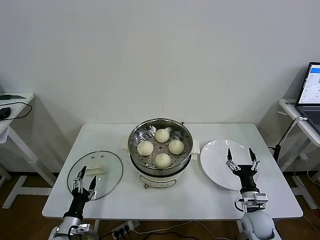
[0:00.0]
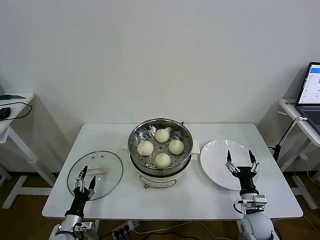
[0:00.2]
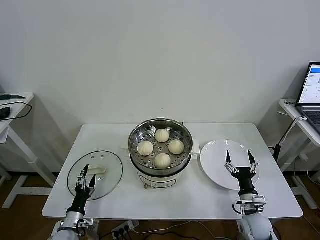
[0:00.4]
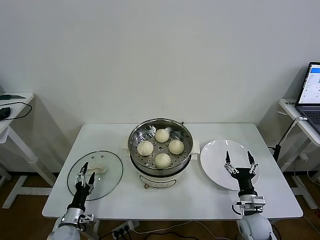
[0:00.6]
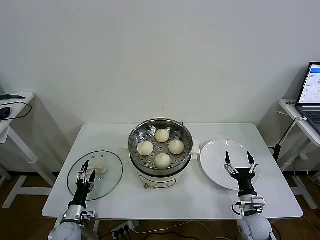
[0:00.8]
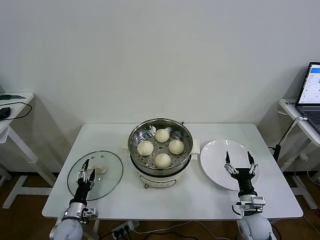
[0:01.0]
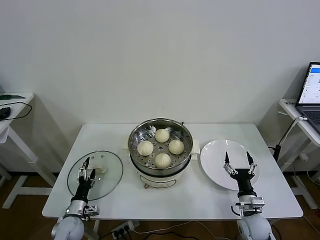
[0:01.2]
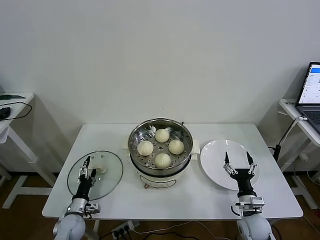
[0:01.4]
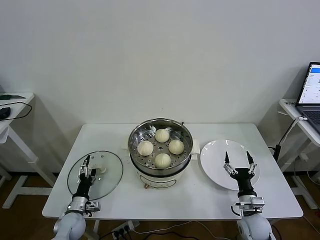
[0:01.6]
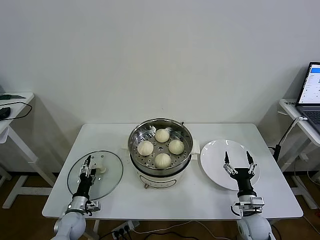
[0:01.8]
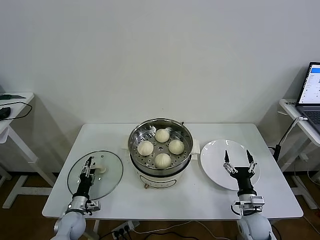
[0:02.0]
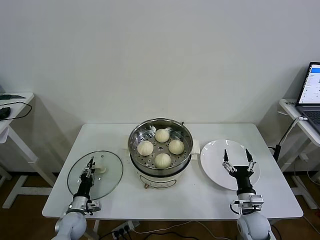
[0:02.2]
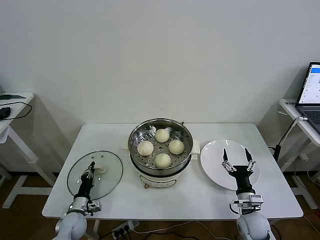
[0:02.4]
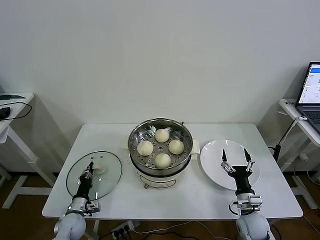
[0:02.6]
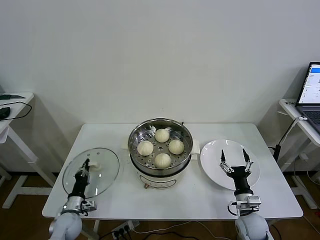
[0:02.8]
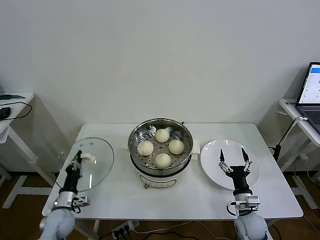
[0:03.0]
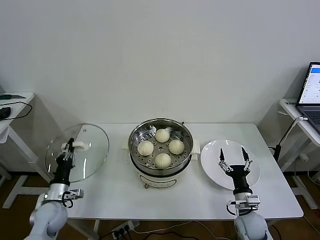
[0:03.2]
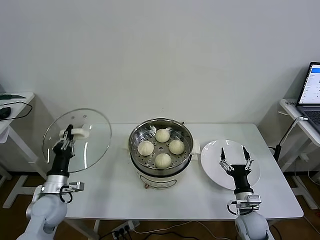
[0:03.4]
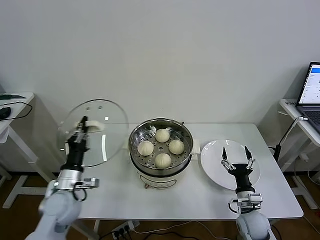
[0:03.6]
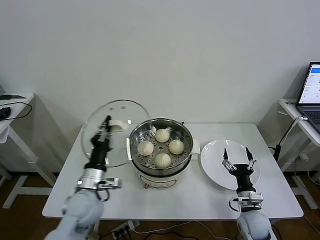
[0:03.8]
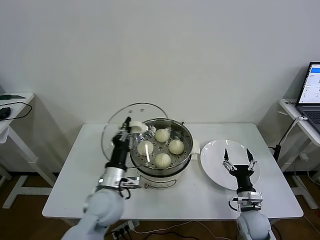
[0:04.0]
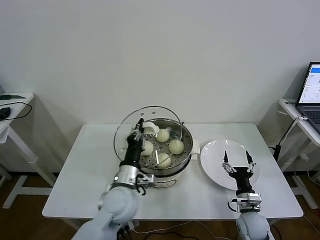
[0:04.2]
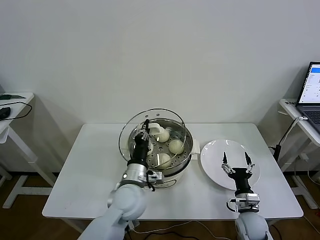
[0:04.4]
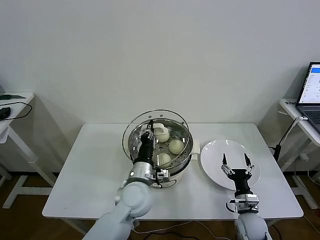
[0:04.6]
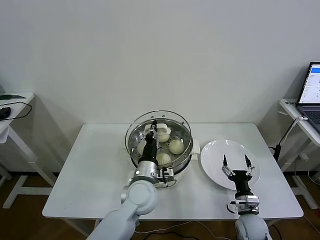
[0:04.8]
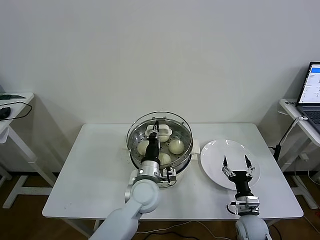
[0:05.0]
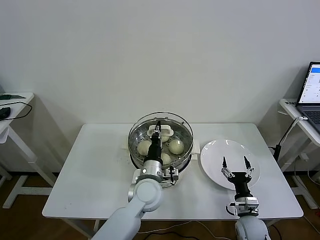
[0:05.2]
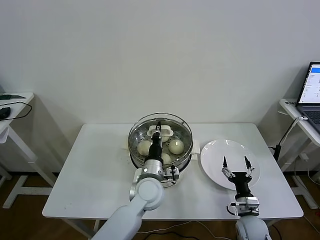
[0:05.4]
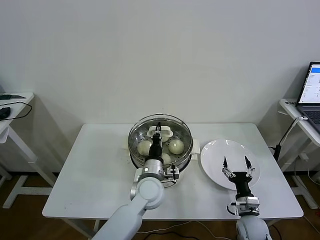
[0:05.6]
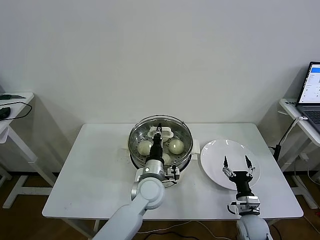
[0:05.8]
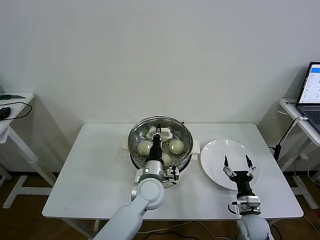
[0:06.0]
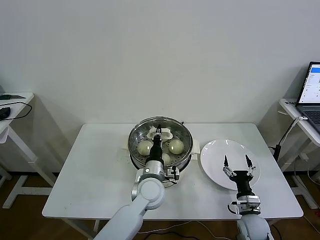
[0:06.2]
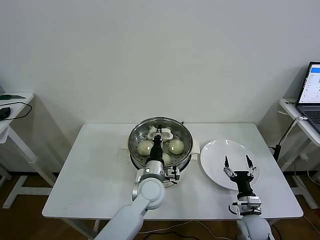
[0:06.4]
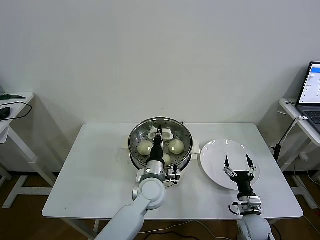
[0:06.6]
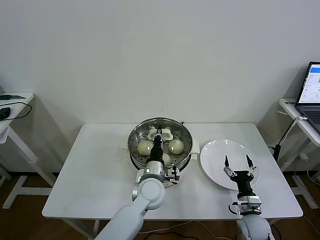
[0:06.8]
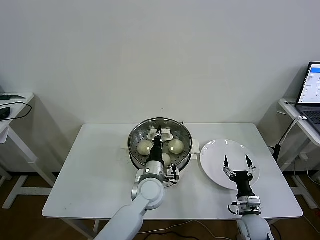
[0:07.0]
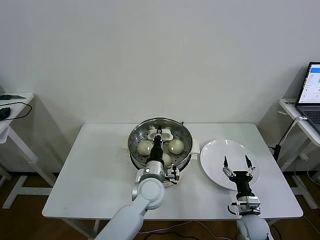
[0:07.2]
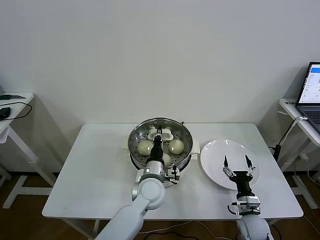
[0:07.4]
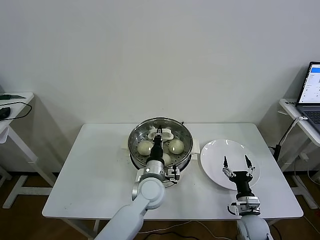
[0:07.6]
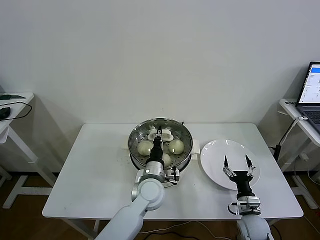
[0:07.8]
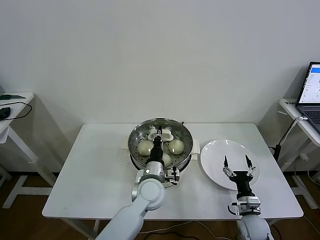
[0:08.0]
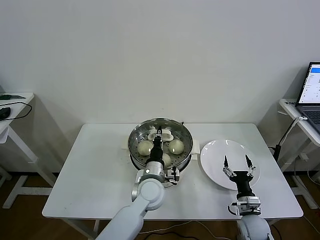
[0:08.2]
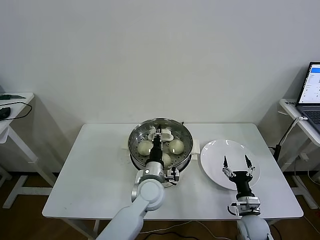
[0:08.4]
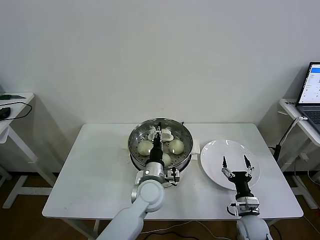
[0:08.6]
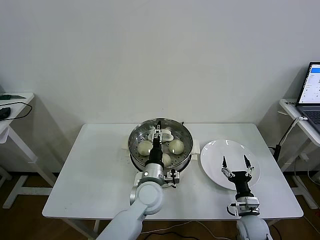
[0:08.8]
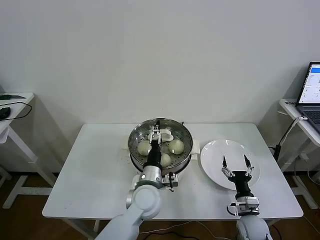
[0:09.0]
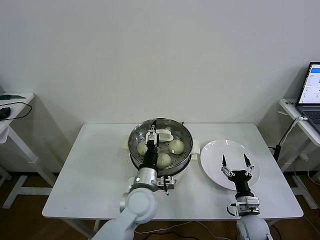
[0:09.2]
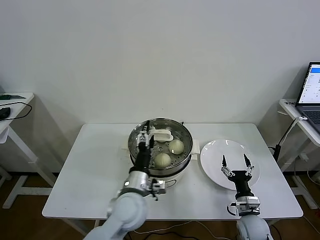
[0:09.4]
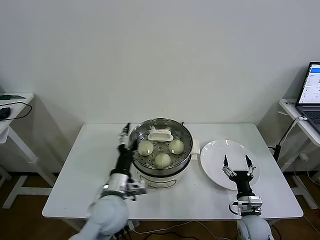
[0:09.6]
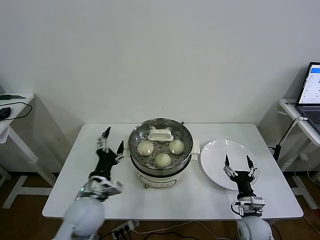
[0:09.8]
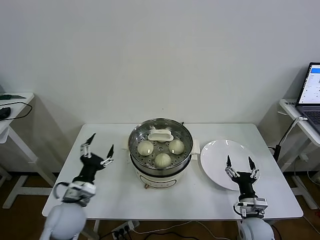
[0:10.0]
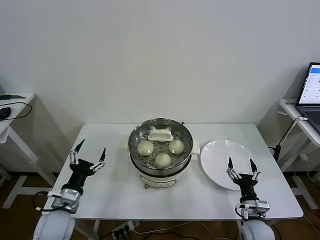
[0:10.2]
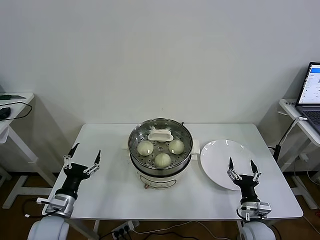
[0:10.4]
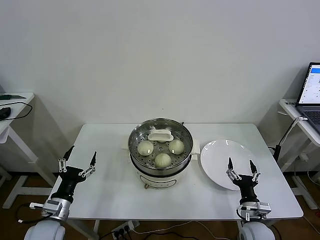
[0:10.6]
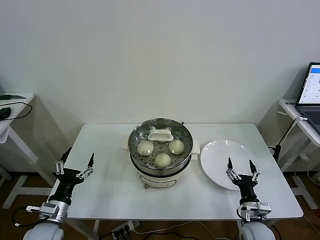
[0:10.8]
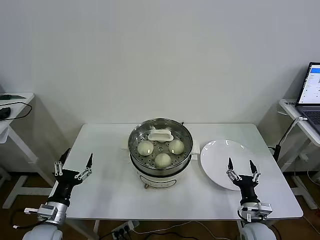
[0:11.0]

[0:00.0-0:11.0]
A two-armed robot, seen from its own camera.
Task of the whole recording: take steamed baozi put them in steamer then cover it.
Step, 0:00.0 to 0:02.8: Grasp the pot lid with left gripper.
Step, 0:03.0 to 0:08.6: Place the pot lid on the steamer with left gripper.
0:00.0 to 0:01.6: The left gripper shifts about 10 cm forward.
0:01.6 to 0:03.2: The left gripper moves upward, approximately 10 cm, and closes its fingers.
0:03.2 to 0:04.8: The left gripper travels to the right by some 30 cm.
0:04.8 to 0:06.2: The left gripper shifts by roughly 5 cm.
0:06.2 to 0:07.8: The two grippers keep their place.
0:07.8 to 0:09.4: The left gripper moves backward, some 5 cm, and opens its fingers.
0:09.4 to 0:11.0: The left gripper shifts roughly 25 cm to the left.

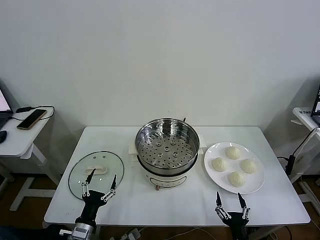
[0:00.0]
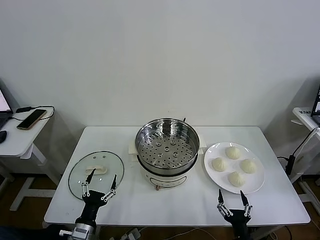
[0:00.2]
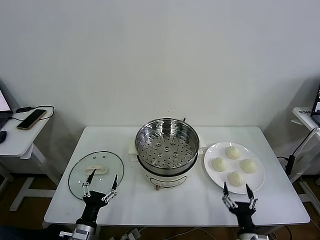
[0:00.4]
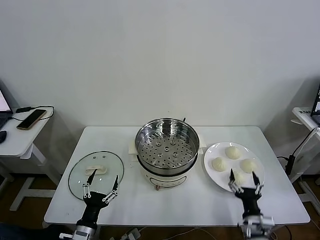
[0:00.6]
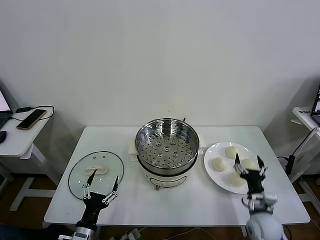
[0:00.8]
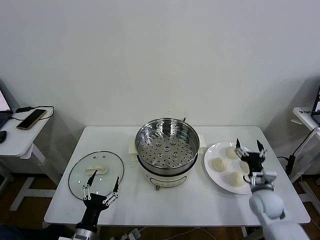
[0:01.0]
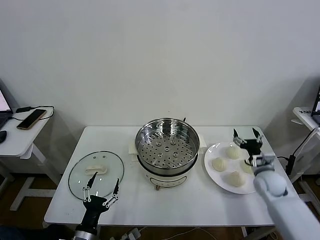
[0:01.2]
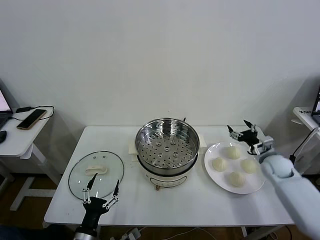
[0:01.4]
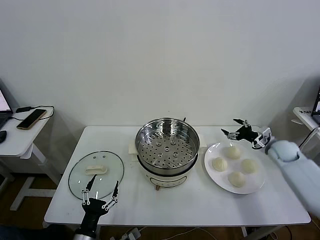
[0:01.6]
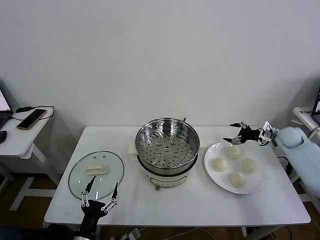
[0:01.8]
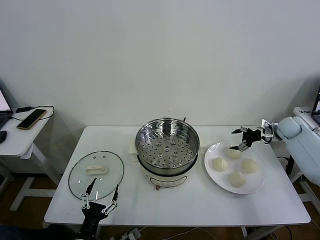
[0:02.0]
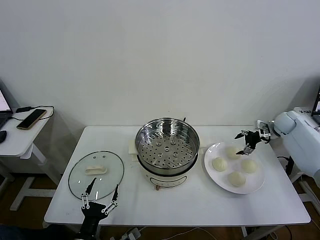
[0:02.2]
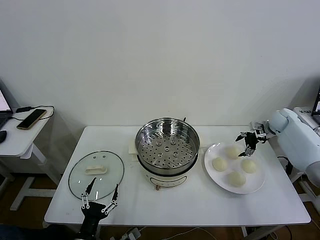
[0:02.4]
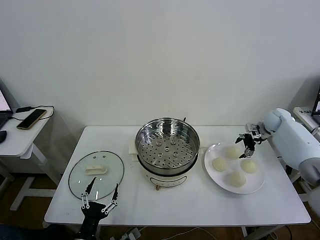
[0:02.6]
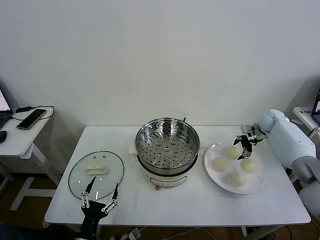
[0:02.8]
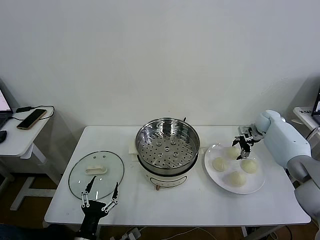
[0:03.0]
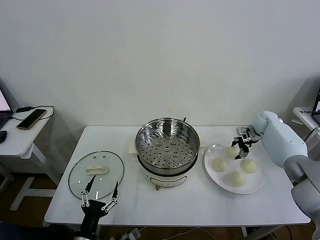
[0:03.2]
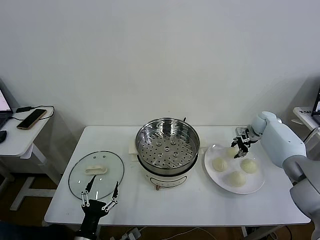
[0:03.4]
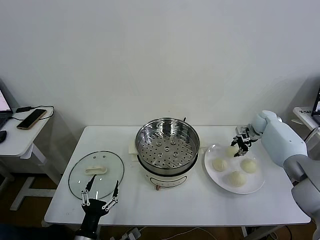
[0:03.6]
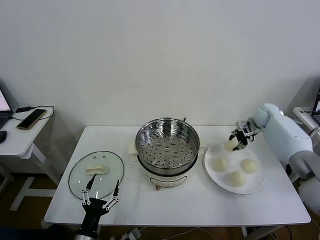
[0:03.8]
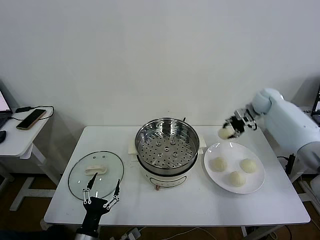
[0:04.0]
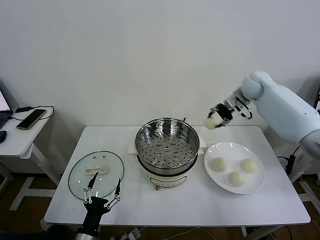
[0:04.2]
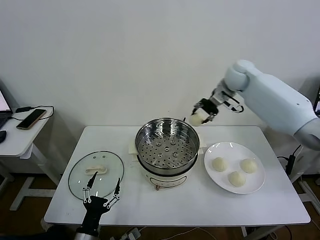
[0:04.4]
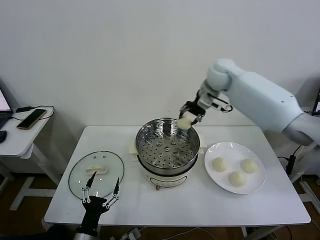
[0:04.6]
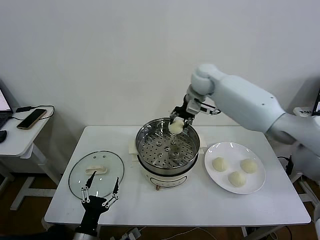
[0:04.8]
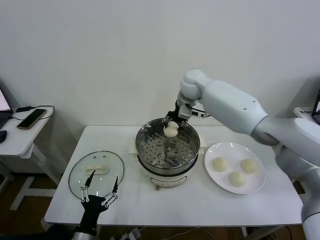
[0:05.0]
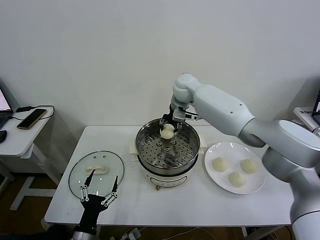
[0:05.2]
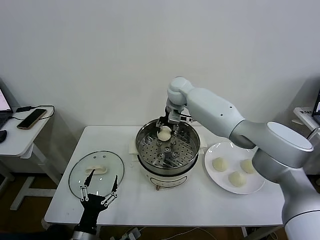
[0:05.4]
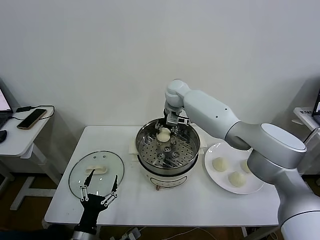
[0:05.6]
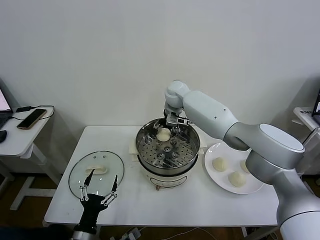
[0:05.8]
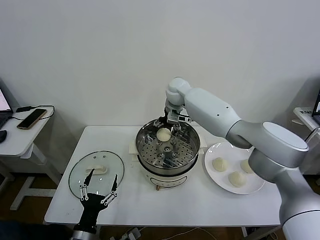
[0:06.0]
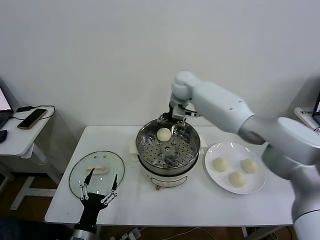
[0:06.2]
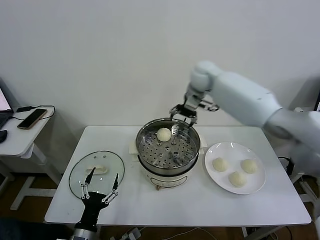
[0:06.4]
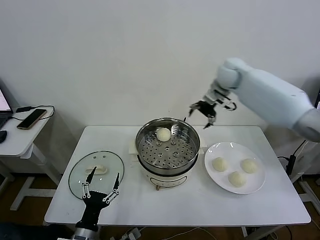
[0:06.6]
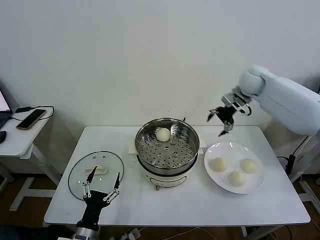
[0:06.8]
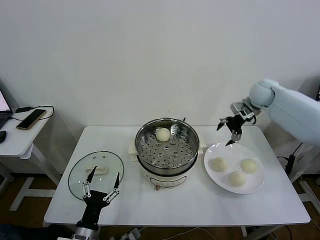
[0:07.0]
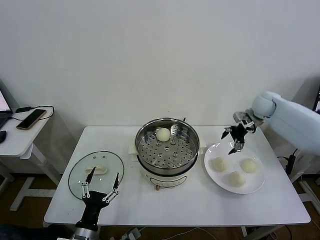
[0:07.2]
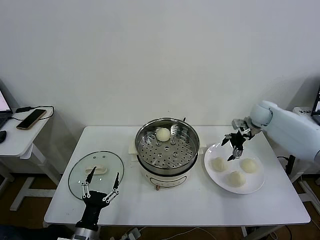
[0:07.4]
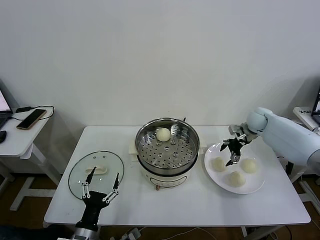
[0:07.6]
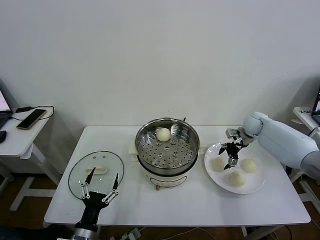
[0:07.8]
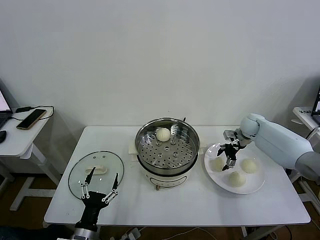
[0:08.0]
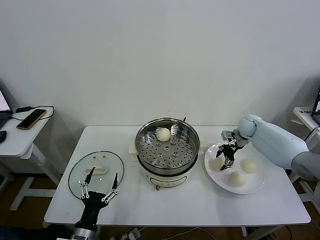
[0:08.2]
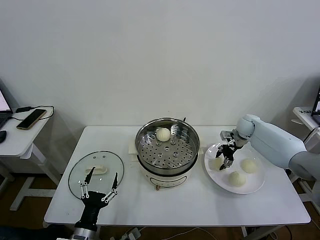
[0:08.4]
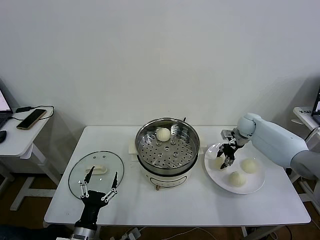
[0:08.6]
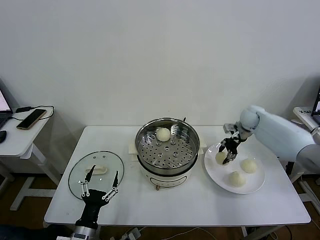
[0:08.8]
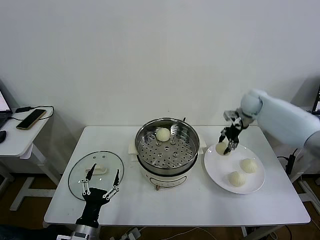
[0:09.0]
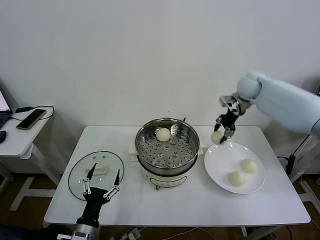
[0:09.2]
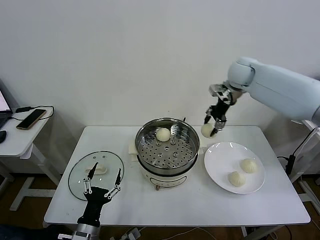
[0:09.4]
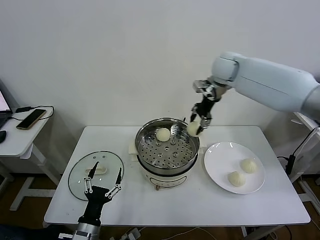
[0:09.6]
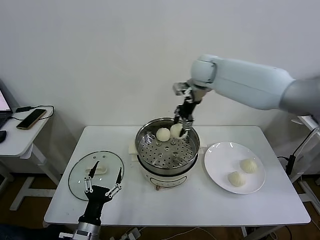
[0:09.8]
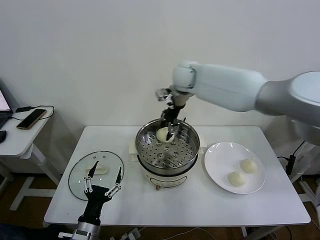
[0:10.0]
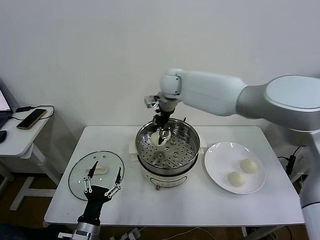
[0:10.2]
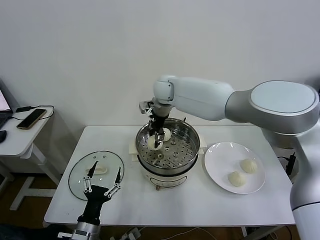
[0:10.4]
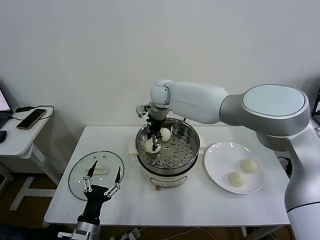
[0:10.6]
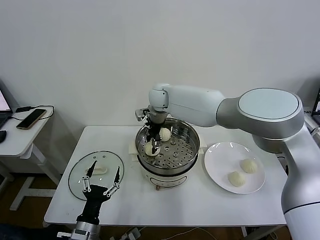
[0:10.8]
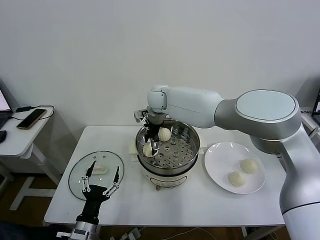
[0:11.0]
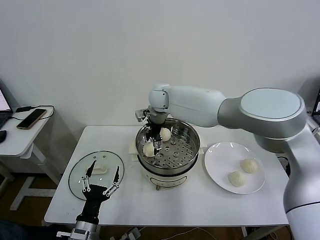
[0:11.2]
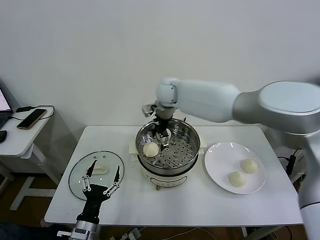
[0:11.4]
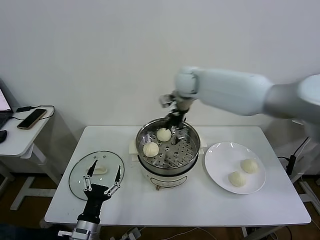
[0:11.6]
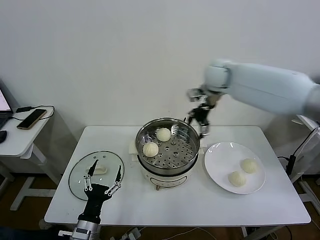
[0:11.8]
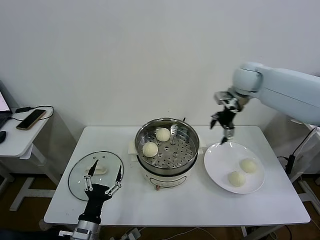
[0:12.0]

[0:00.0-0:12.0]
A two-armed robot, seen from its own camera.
Task of the whole recording: take steamed baozi put them in steamer then cover it.
Step, 0:00.0 to 0:03.4: Grasp the baozi in the plate with right gripper.
Step, 0:03.6 to 0:05.8: Place the baozi on the steamer with right gripper.
Step, 0:06.0 to 0:08.4: Grasp the baozi in the plate with right gripper.
Step, 0:08.6 to 0:10.8: Place the baozi on the steamer with right gripper.
0:01.6 to 0:03.0: The right gripper travels forward by some 10 cm.
0:03.0 to 0:04.4: The right gripper goes roughly 30 cm to the left and upward, and closes.
0:04.4 to 0:06.0: The right gripper moves to the left and downward, roughly 15 cm, and opens.
0:06.0 to 0:07.6: The right gripper is displaced to the right and downward by about 35 cm.
0:07.6 to 0:09.0: The right gripper travels upward by approximately 10 cm, and closes.
0:09.0 to 0:10.4: The right gripper moves to the left, roughly 35 cm.
0:10.4 to 0:12.0: The right gripper heads to the right, covering roughly 30 cm, and opens.
